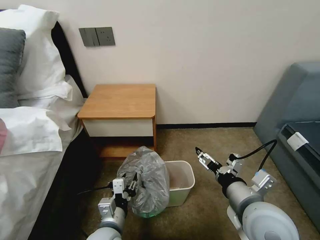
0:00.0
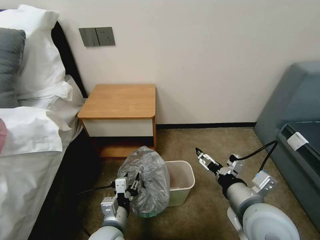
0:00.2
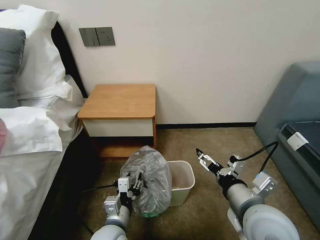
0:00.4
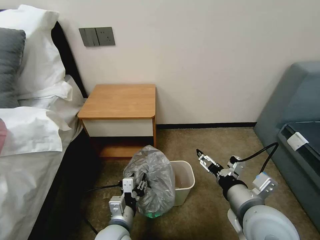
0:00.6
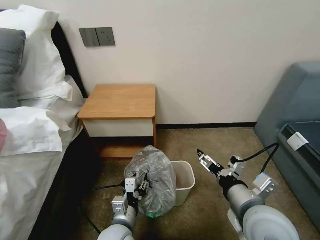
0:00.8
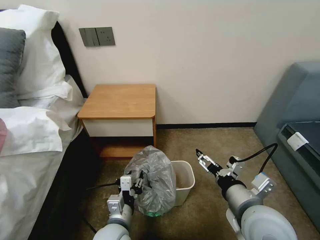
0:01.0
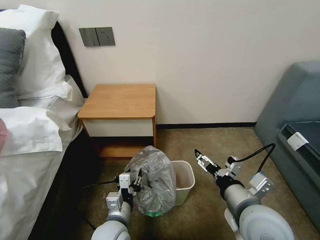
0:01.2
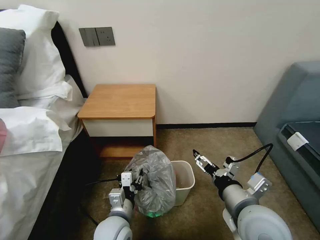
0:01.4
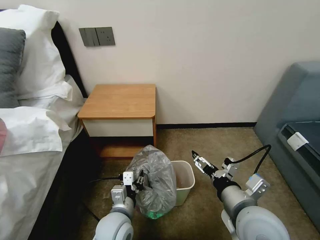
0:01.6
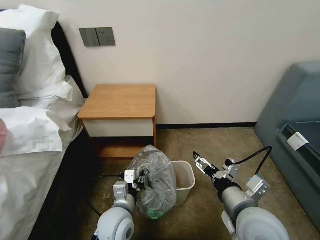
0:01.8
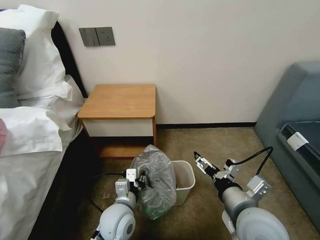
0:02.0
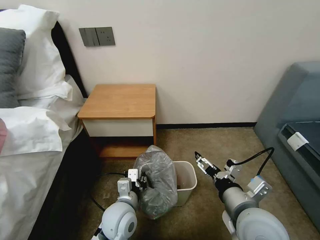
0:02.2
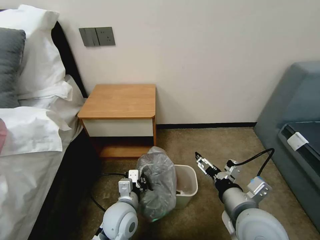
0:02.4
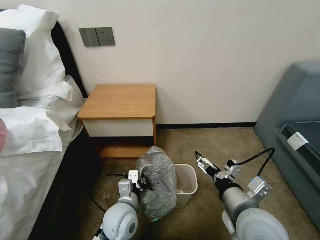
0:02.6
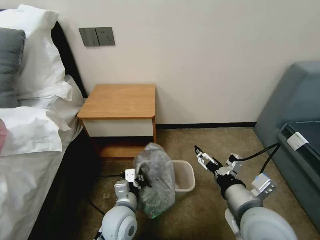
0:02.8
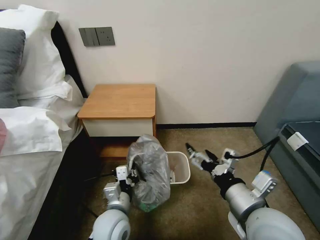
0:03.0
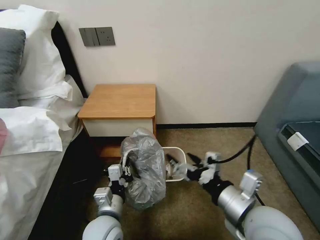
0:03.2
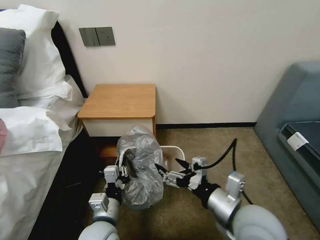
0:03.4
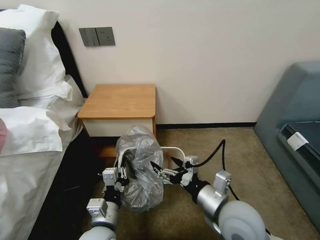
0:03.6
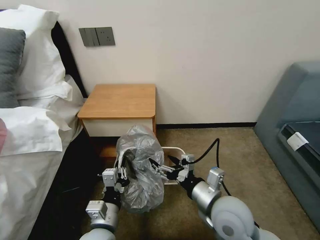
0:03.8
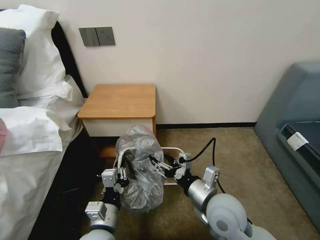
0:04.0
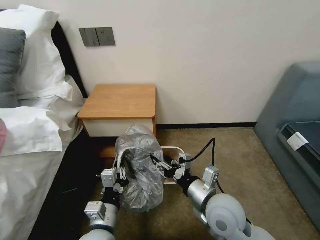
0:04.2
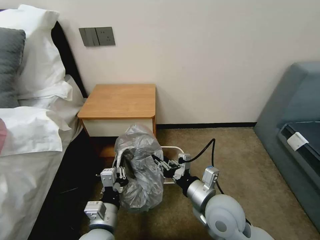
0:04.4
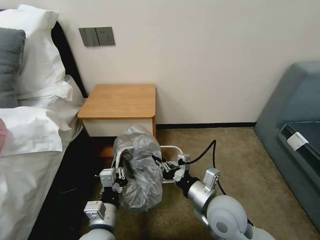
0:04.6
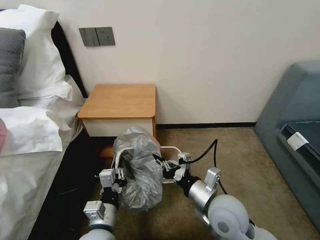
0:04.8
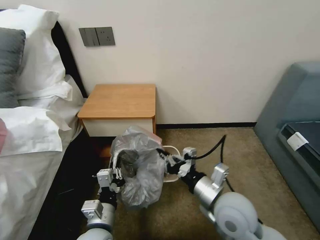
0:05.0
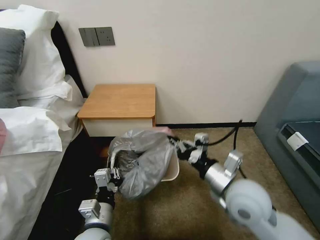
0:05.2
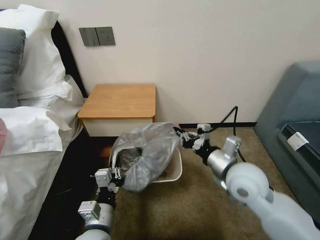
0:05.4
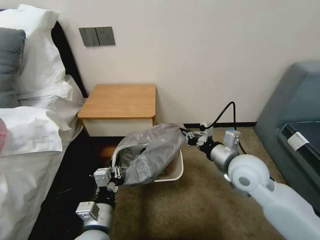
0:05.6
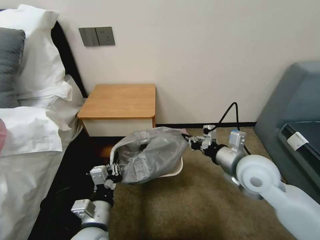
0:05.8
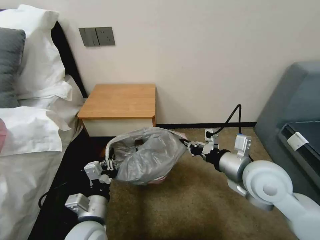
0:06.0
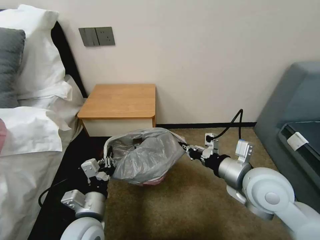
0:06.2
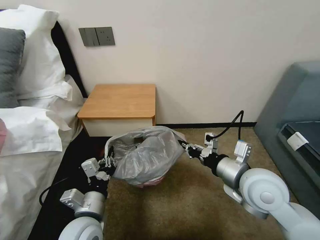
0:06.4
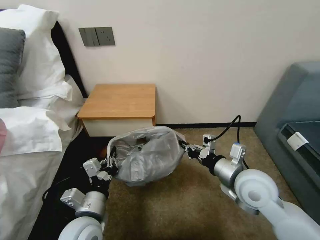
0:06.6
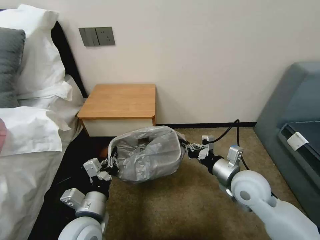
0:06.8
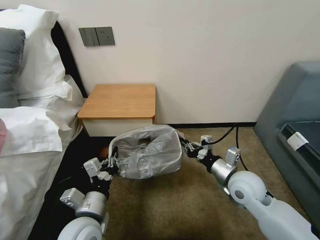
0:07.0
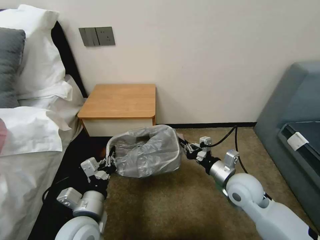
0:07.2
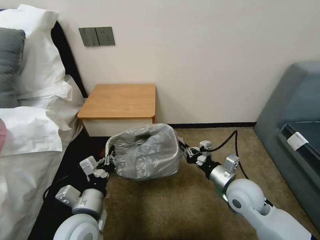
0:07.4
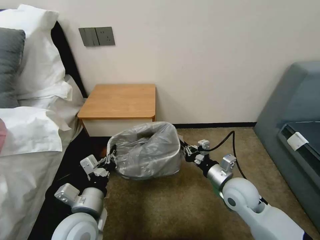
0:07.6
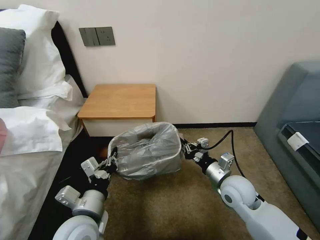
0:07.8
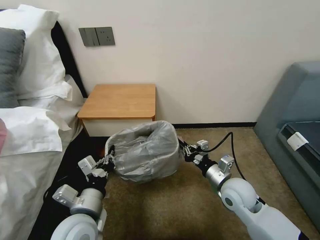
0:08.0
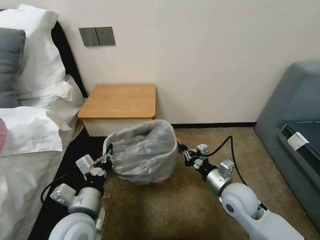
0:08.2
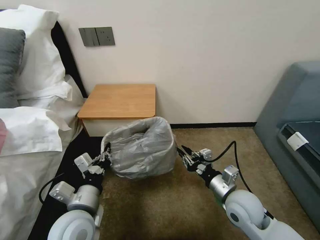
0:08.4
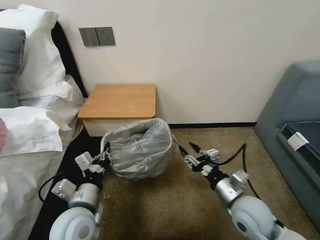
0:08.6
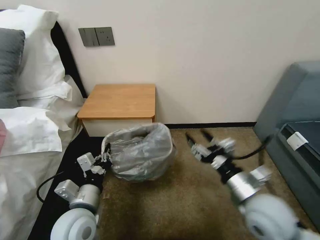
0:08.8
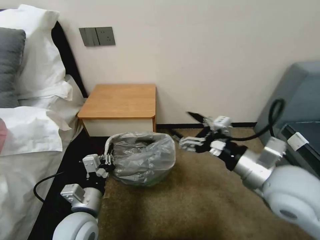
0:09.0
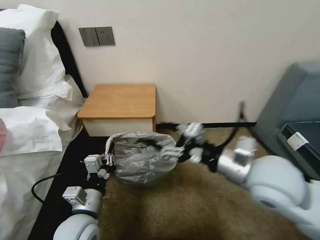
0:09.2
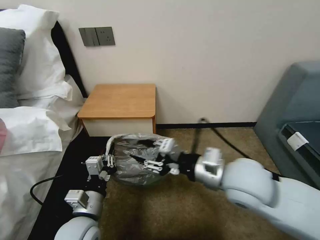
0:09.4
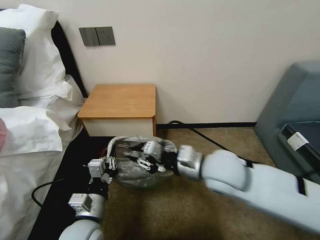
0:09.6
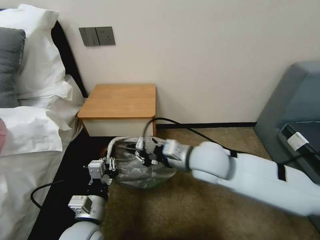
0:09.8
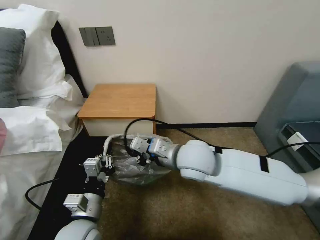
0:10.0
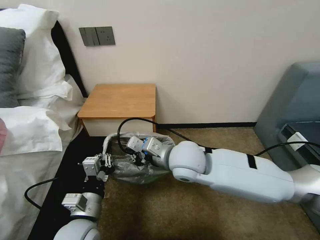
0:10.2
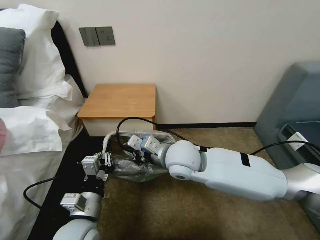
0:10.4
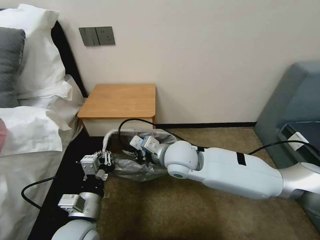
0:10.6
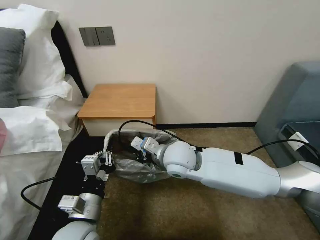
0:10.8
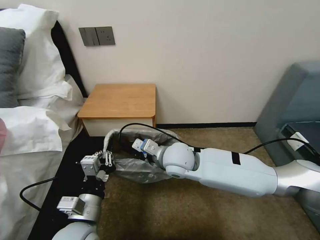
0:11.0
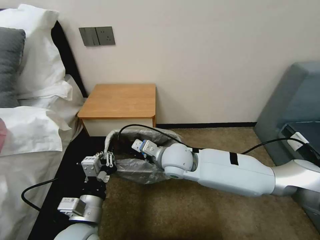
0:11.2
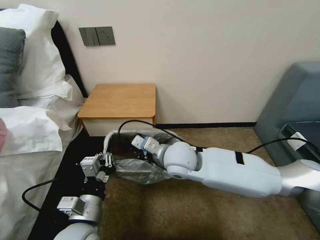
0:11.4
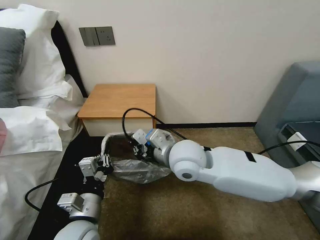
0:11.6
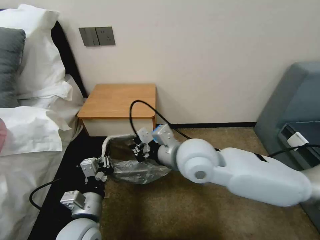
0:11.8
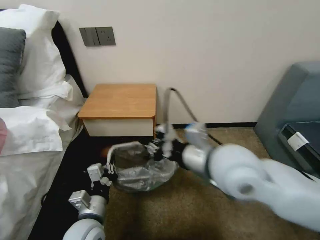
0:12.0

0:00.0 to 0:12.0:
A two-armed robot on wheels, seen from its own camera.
Task of the whole recording: Pick up the garbage bag from the table and place it over the trash can.
0:00.0 to 0:01.6: The grippers stay close to where they were, moving slightly.
0:01.6 to 0:03.0: The left gripper closes up.
0:03.0 to 0:04.4: The left gripper ends up about 5 cm from where it was. Meanwhile the right gripper goes roughly 10 cm downward, to the left and forward, and closes its fingers.
0:04.4 to 0:06.0: The right gripper goes roughly 15 cm upward, to the right and forward.
0:06.0 to 0:07.6: The right gripper heads downward, covering roughly 15 cm.
0:07.6 to 0:09.0: The right gripper travels upward by approximately 15 cm, and opens.
0:09.0 to 0:10.4: The right gripper heads to the left and forward, covering about 25 cm, and closes up.
0:10.4 to 0:12.0: The right gripper heads upward, to the right and backward, covering roughly 15 cm.

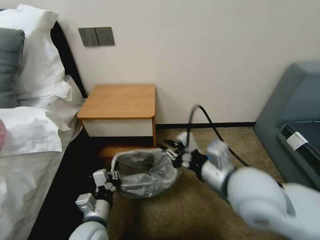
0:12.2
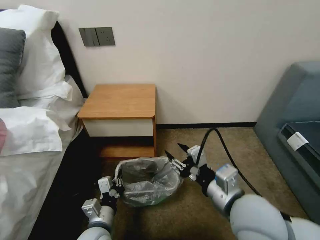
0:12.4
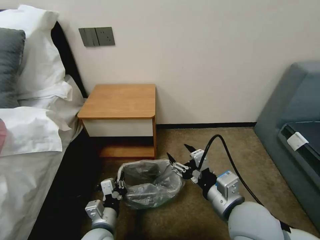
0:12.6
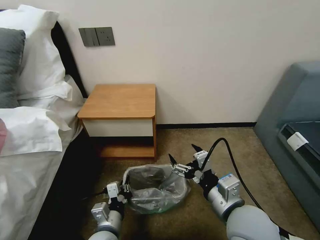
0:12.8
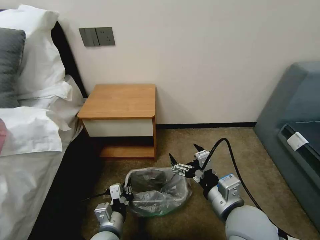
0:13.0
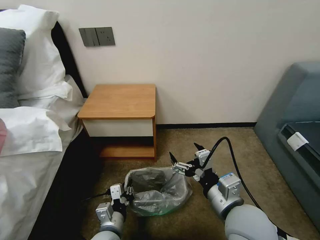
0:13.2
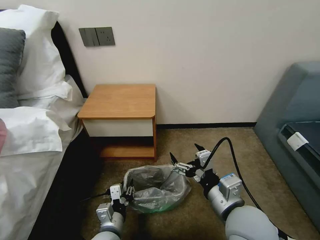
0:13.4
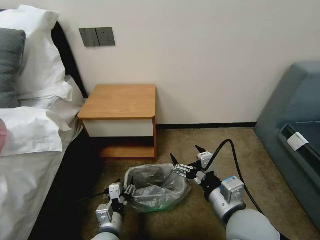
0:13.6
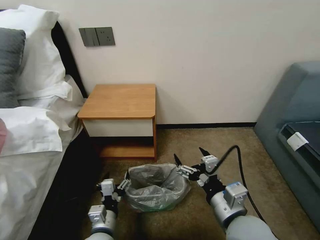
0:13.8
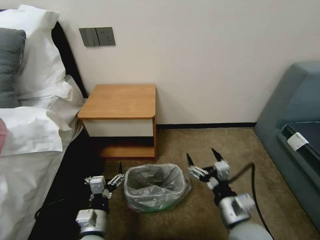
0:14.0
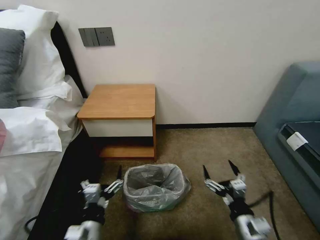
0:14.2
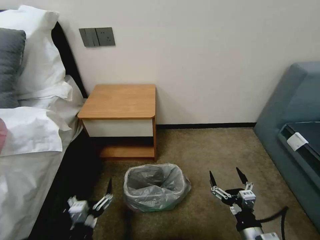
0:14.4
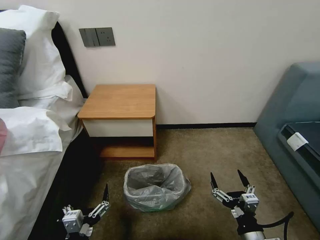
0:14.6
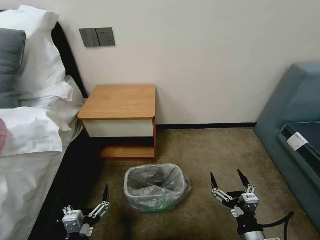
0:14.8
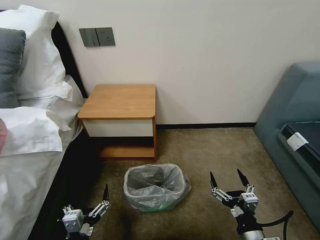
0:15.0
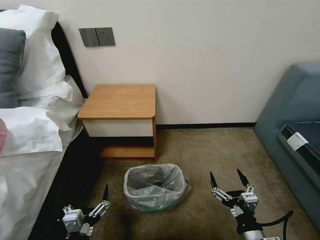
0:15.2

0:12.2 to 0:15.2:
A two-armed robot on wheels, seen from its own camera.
Task of the whole recording: Pick up the garbage bag from the table and place it over the trash can.
0:12.2 to 0:13.8: The left gripper opens its fingers; the right gripper heads downward and backward, covering about 10 cm, and opens.
0:13.8 to 0:15.2: The left gripper moves backward, approximately 10 cm; the right gripper heads downward, to the right and backward, covering some 15 cm.

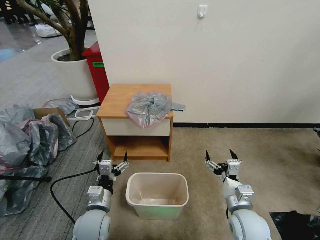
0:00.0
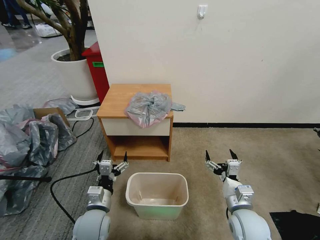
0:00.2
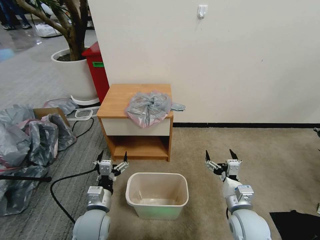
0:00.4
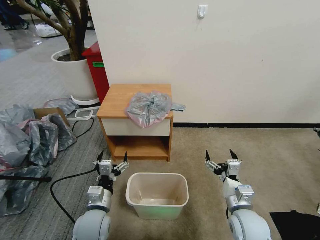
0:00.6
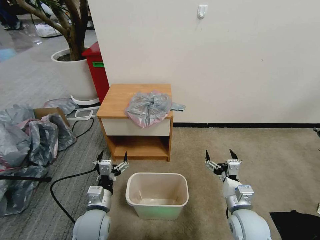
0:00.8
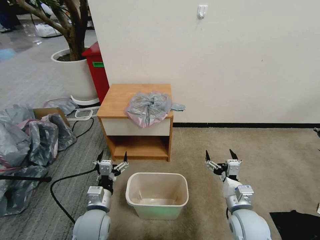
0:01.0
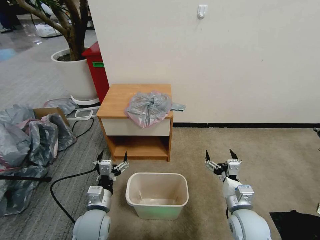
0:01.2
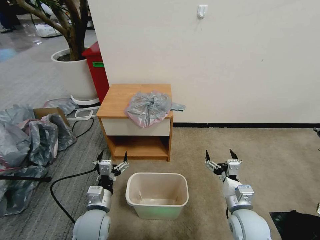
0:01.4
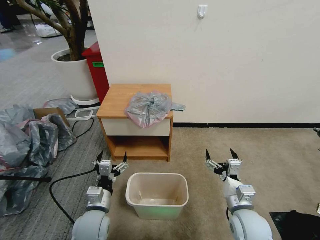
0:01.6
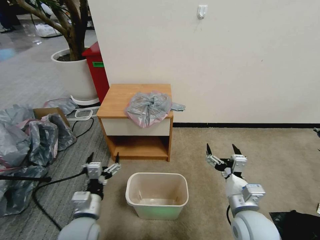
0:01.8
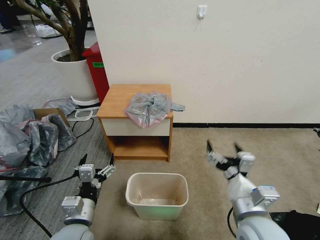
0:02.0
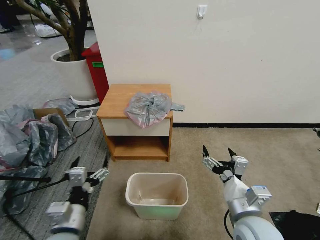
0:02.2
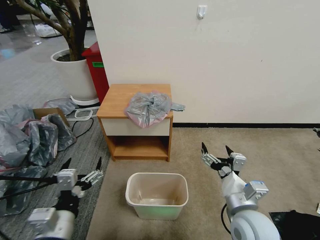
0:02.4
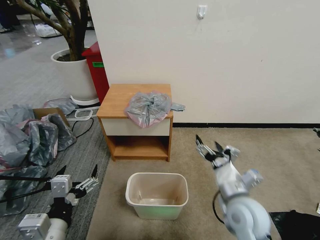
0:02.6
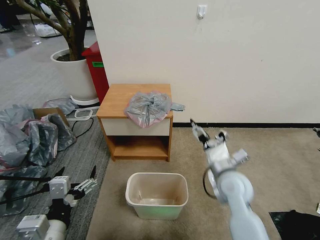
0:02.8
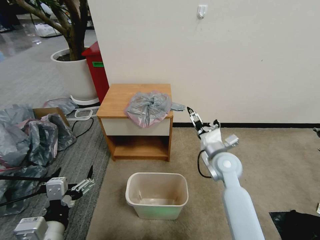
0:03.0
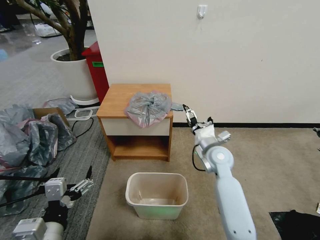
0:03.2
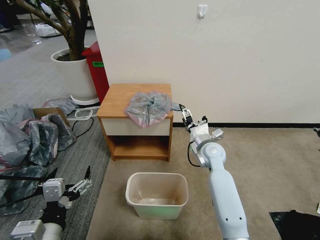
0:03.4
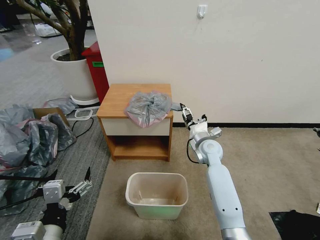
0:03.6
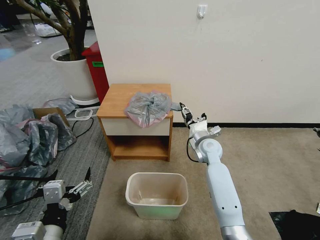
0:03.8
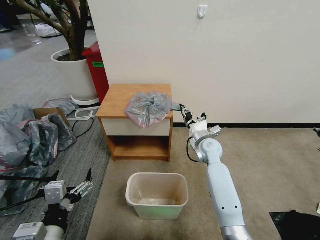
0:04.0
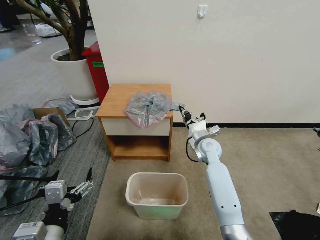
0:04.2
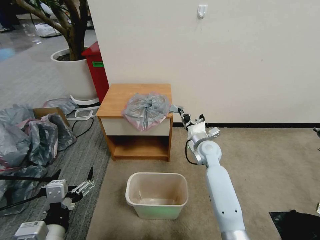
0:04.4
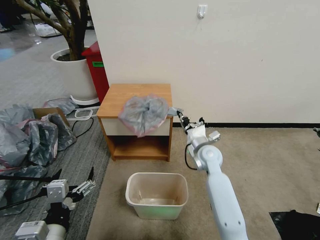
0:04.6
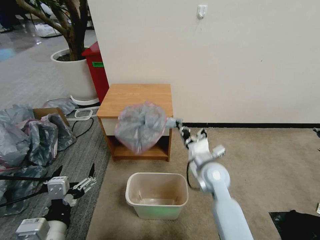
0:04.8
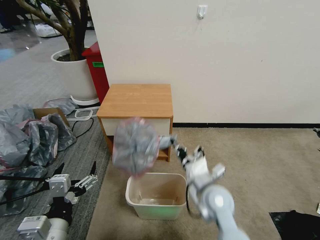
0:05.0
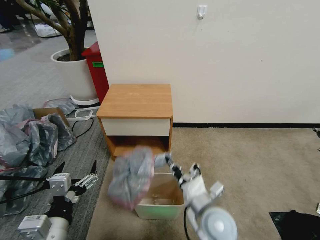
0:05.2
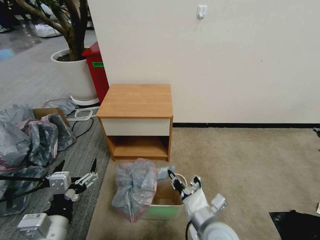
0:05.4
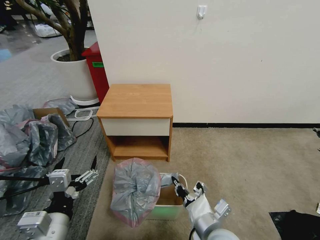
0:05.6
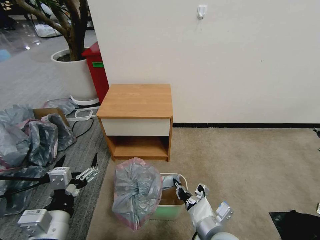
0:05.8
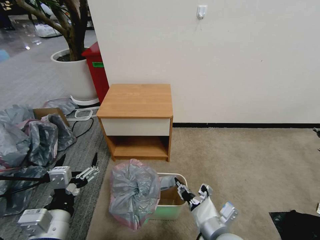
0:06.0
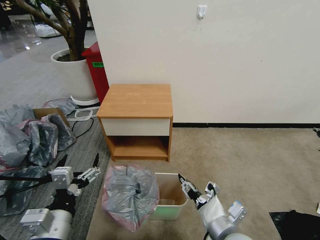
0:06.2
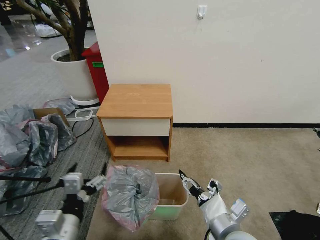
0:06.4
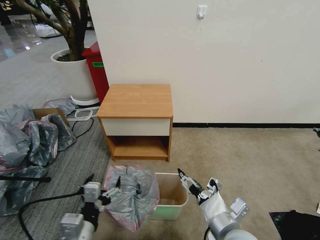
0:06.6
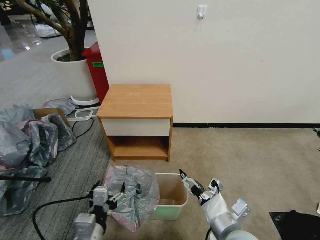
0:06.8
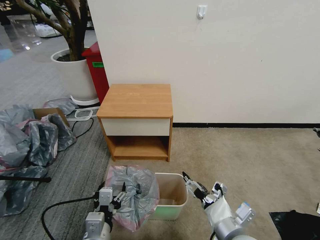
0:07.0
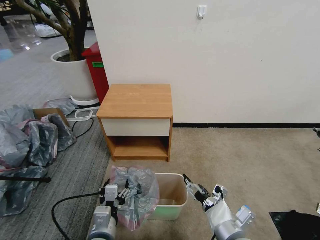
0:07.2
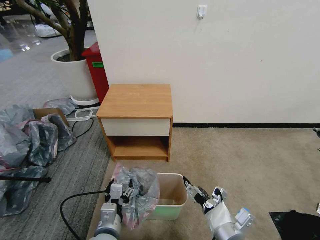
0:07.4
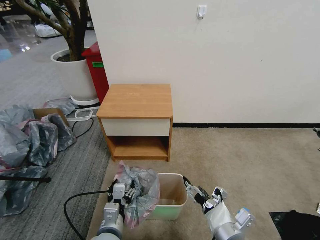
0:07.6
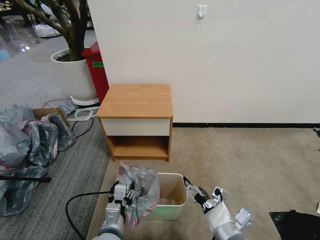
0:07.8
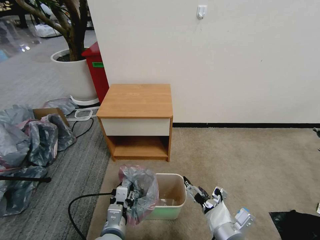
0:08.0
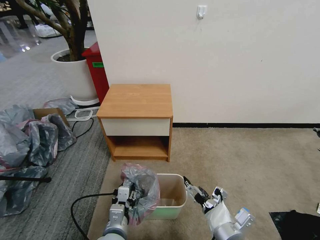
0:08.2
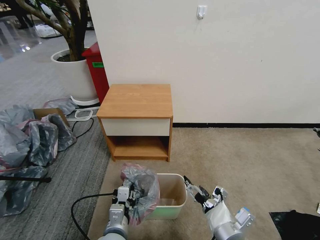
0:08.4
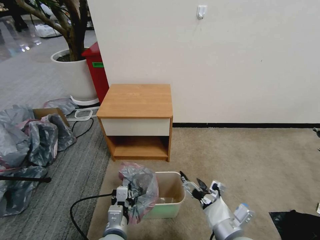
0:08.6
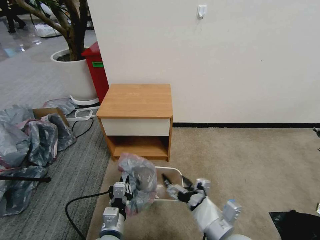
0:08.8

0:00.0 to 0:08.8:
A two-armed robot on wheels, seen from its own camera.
Task of the whole recording: Pick up the garbage bag from the table and place it over the trash can.
0:01.4 to 0:03.0: The left gripper moves upward and backward, some 20 cm. The right gripper heads forward and upward, covering roughly 20 cm.
0:03.0 to 0:04.4: The right gripper moves forward, roughly 10 cm, and closes its fingers.
0:04.4 to 0:05.8: The right gripper travels backward by about 30 cm.
0:05.8 to 0:07.4: The right gripper opens its fingers; the left gripper is displaced downward and to the right by approximately 15 cm.
0:07.4 to 0:08.8: The left gripper closes.
